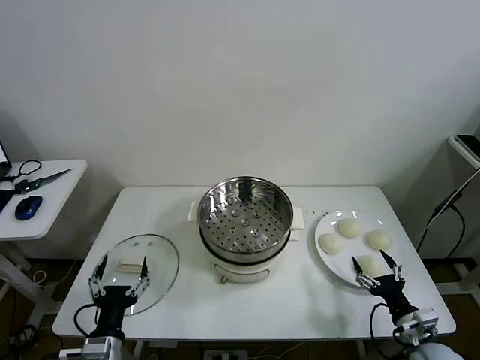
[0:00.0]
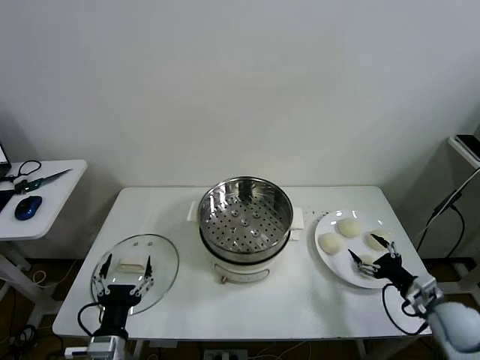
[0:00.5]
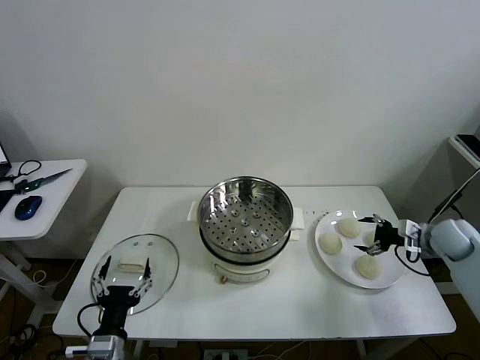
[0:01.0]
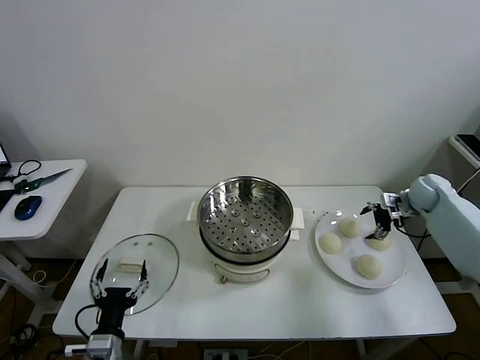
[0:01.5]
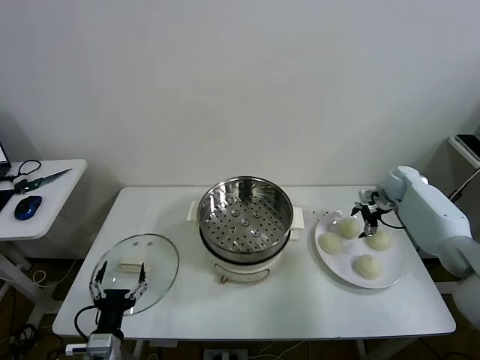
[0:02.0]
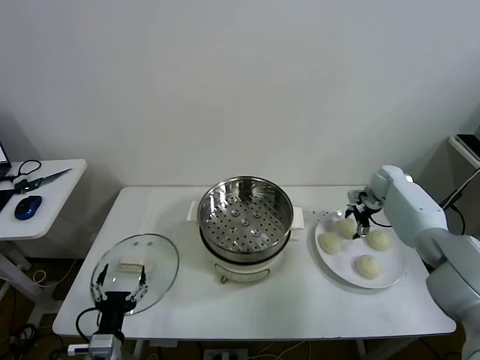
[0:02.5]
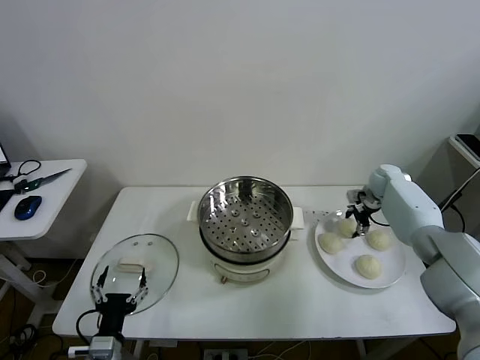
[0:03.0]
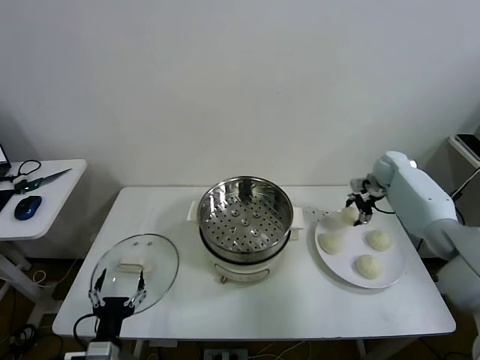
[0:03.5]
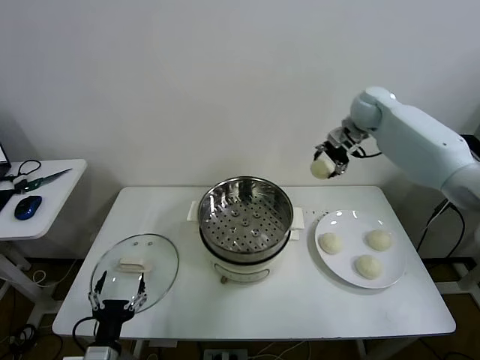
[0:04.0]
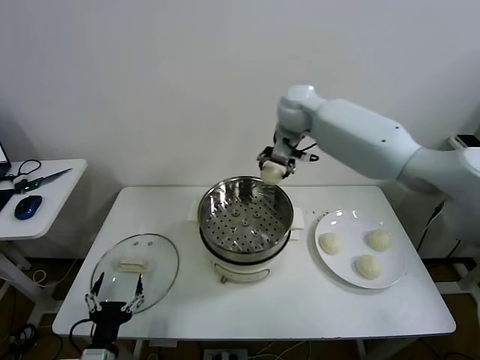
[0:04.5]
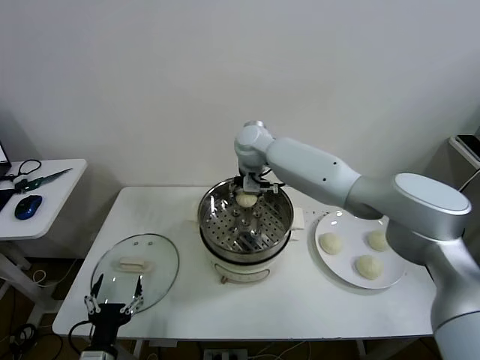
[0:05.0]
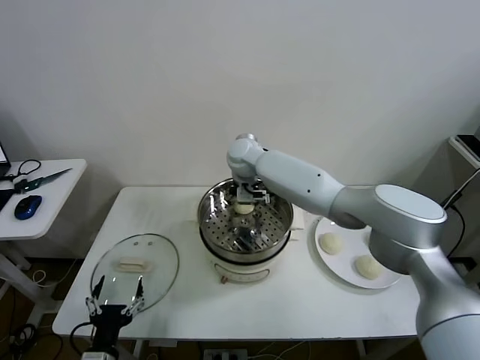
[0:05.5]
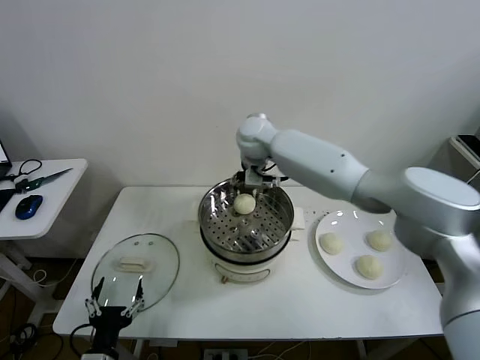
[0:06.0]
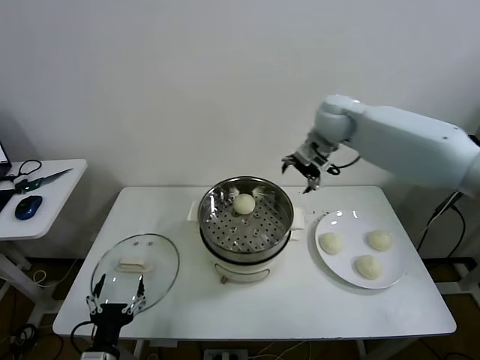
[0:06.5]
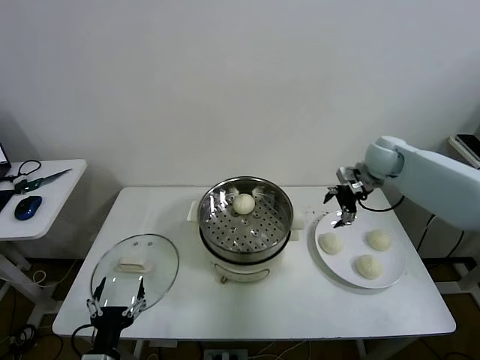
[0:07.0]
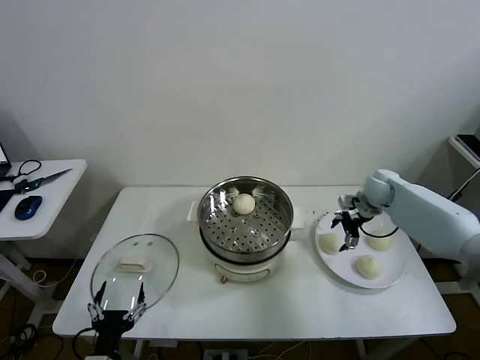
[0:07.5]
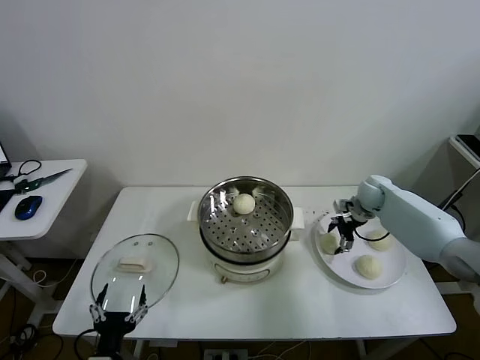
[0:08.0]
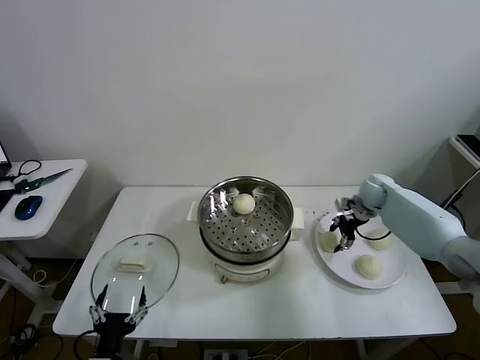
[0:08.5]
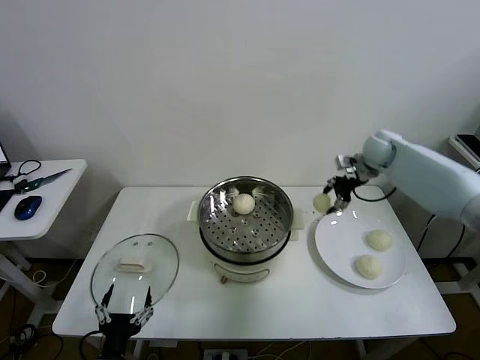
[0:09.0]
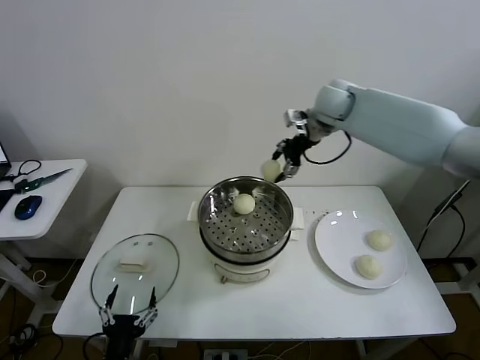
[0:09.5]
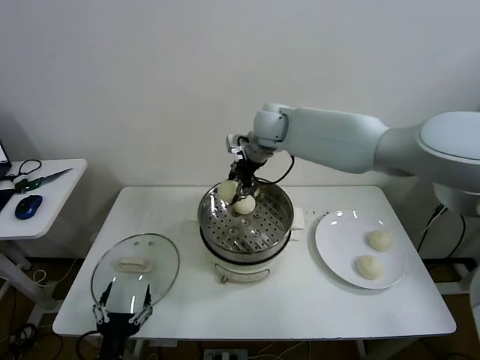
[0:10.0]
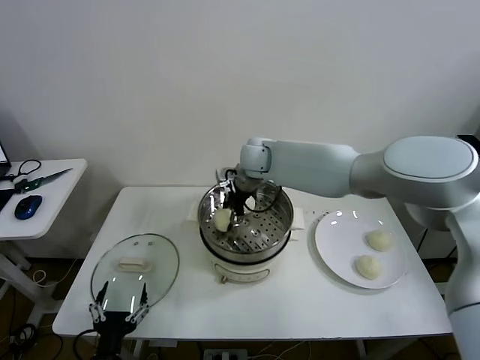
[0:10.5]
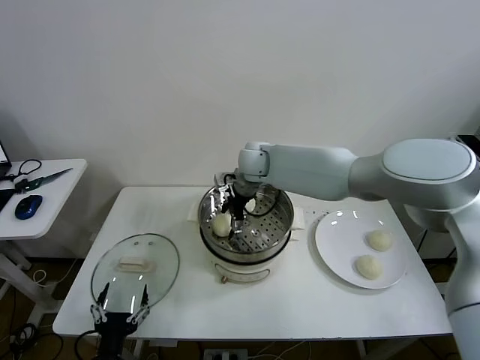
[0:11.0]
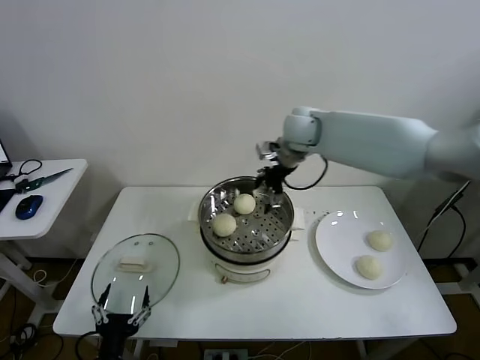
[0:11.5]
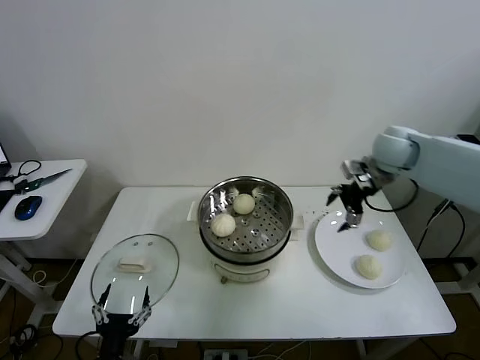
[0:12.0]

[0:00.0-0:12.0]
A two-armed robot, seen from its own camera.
Task of the whole recording: take steamed baozi put them in steamer then cover it.
Step, 0:00.0 to 0:03.0: Grasp the baozi in the plate with right gripper.
Step, 0:03.5 to 0:05.5: Place the baozi on the steamer with right gripper.
Step, 0:06.0 to 0:08.0: Grasp the baozi in the plate with right gripper.
Step, 0:08.5 to 0:11.0: Place the baozi on the steamer with right gripper.
0:02.0 to 0:04.0: The right gripper travels upward and to the left by roughly 30 cm, and closes.
0:04.0 to 0:06.0: The right gripper is displaced to the left by about 20 cm, and opens its fingers.
0:06.0 to 0:08.0: The right gripper moves to the right and downward, roughly 40 cm, and closes up.
0:08.0 to 0:10.0: The right gripper travels to the left and upward by roughly 35 cm, and closes up.
0:10.0 to 0:12.0: The right gripper shifts some 30 cm to the right, and opens.

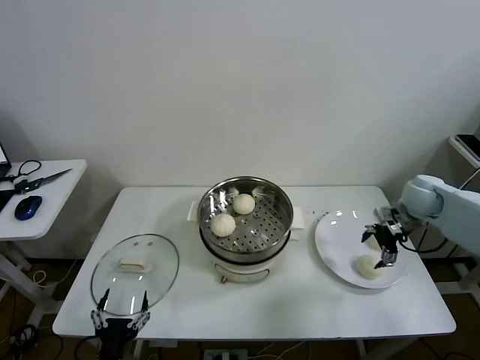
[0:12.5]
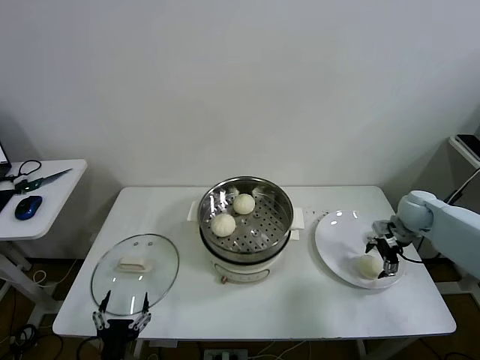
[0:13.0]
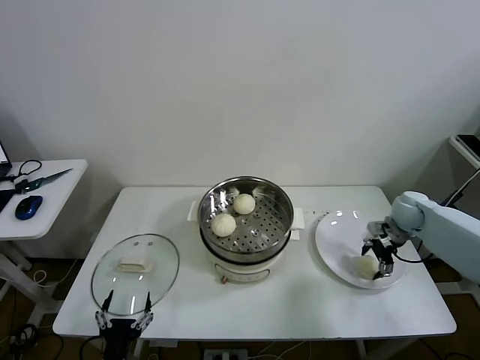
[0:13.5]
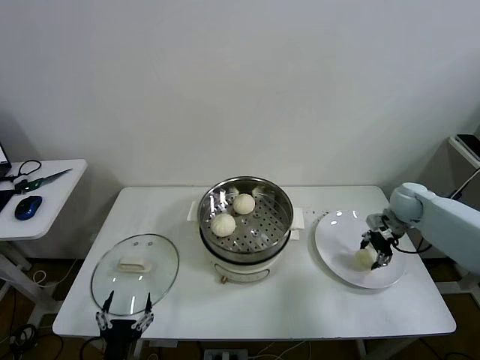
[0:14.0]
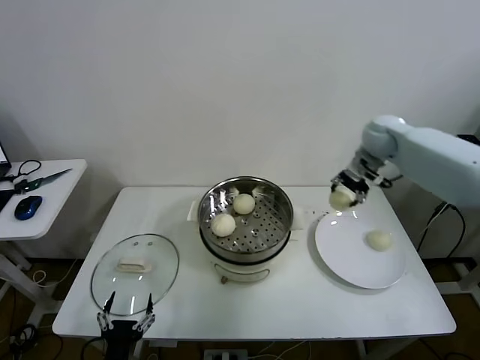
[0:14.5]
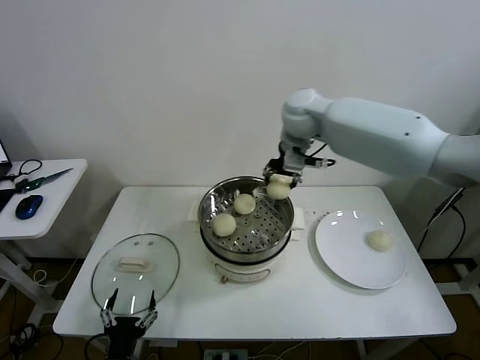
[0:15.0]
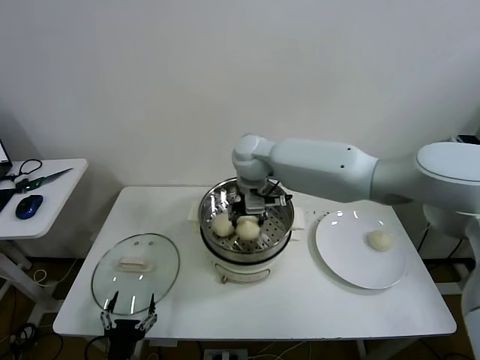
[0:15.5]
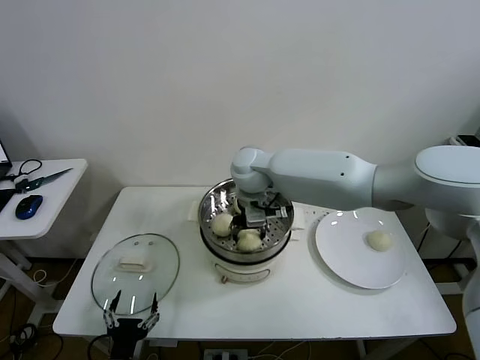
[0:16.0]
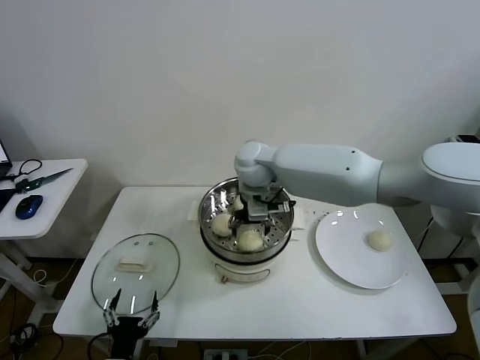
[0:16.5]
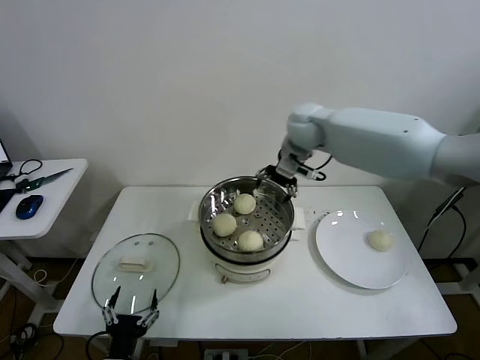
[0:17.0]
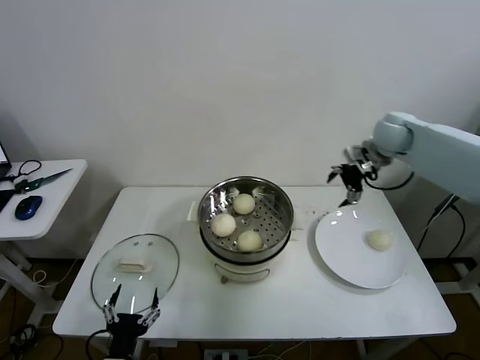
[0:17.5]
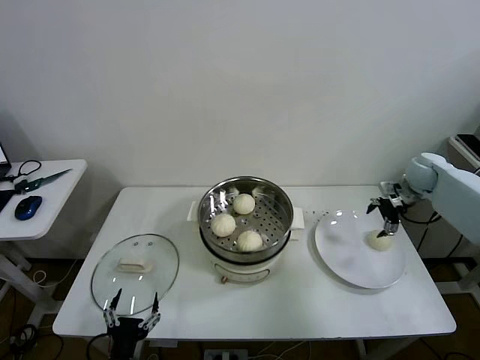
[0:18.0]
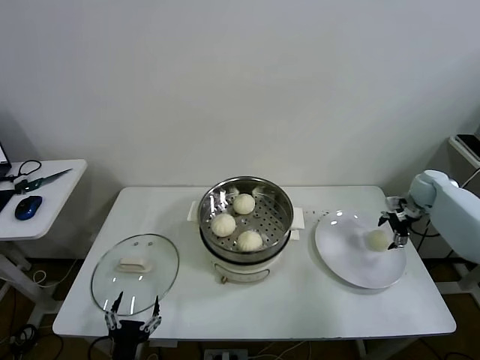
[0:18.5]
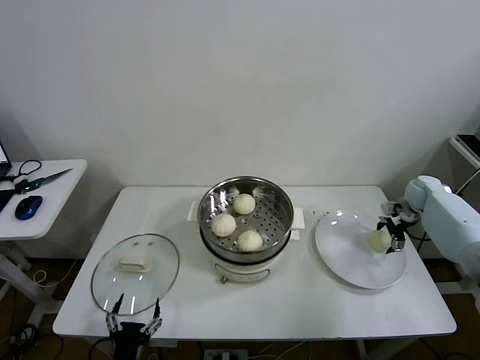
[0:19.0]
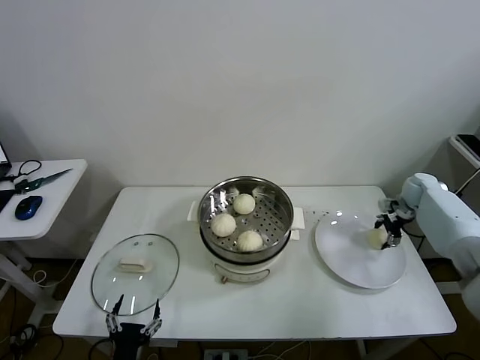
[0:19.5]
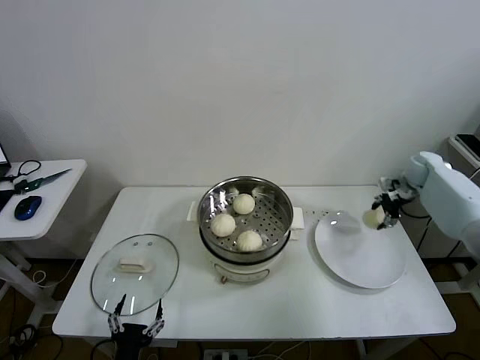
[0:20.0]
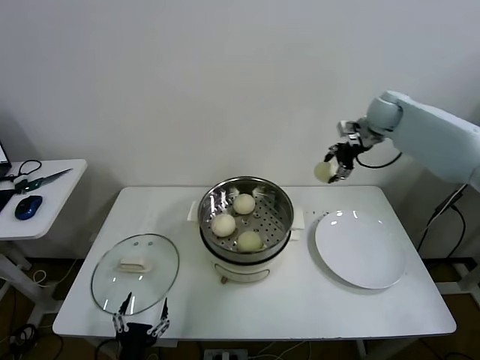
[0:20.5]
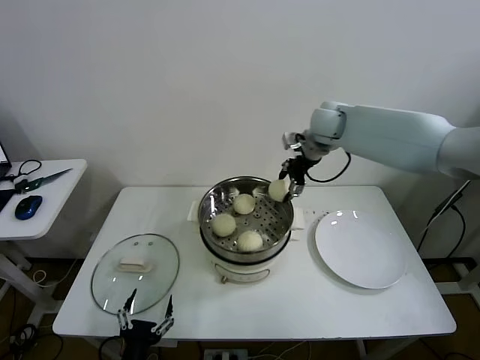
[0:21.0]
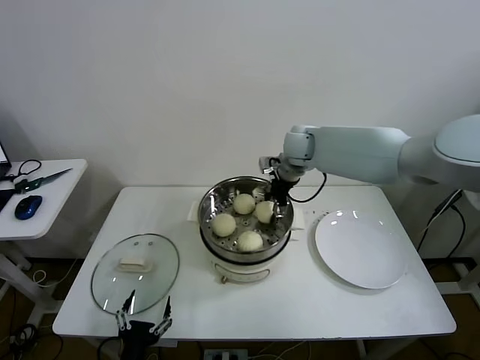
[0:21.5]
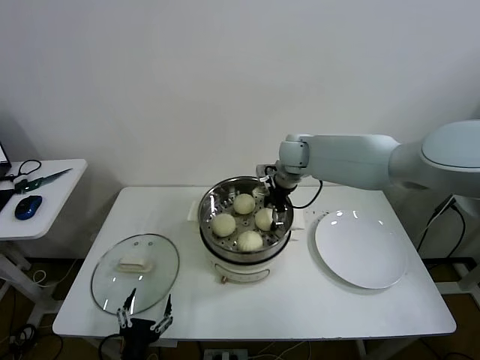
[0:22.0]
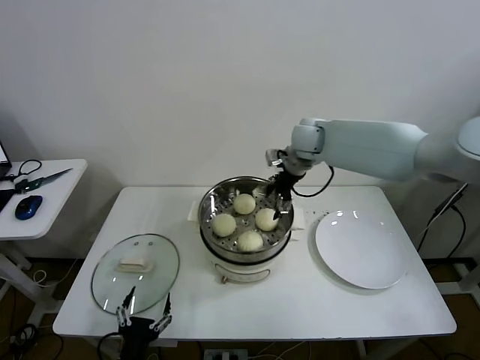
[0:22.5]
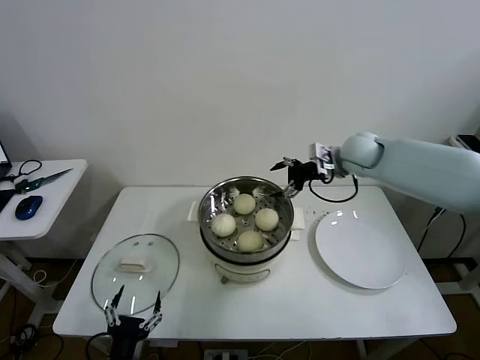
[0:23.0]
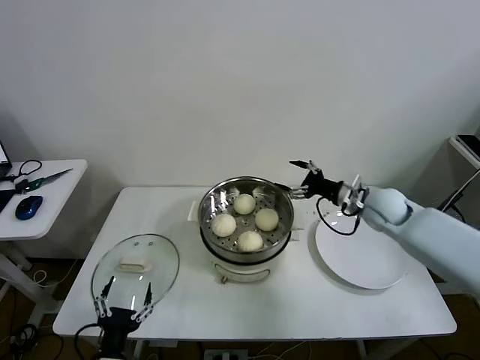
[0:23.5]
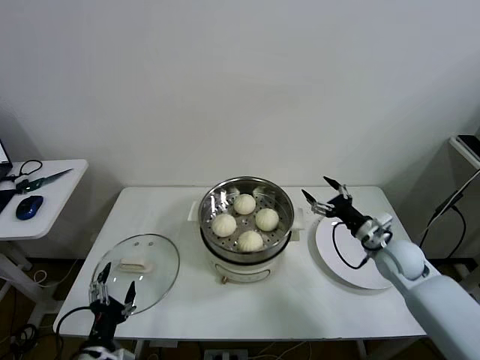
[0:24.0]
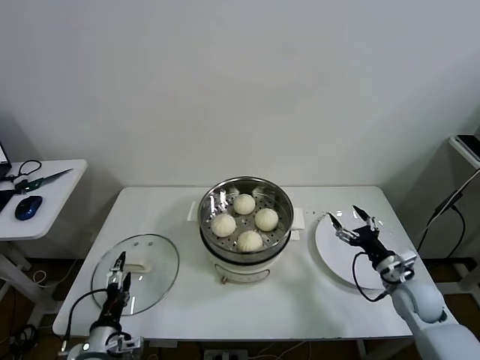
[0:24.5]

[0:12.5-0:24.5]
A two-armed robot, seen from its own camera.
Task of the whole recording: take steamed baozi put them in steamer then cover it.
Step, 0:14.0 to 0:16.0: Place the baozi on the steamer with right gripper.
Step, 0:16.5 to 0:19.5: Grasp the baozi in the plate with right gripper.
Step, 0:20.0 to 0:22.0: Place the baozi on the steamer with right gripper.
0:12.5 to 0:14.5: The right gripper is displaced upward, to the left and forward by some 20 cm, and closes.
0:14.5 to 0:16.5: The right gripper heads to the left, covering roughly 30 cm, and opens.
0:16.5 to 0:18.5: The right gripper shifts some 50 cm to the right.
0:18.5 to 0:20.5: The right gripper shifts some 25 cm upward and to the left, and closes its fingers.
0:20.5 to 0:22.5: The right gripper moves to the left, roughly 15 cm, and opens up.
0:22.5 to 0:24.5: The right gripper goes some 40 cm downward, backward and to the right, while the left gripper heads forward and to the left, covering approximately 10 cm.

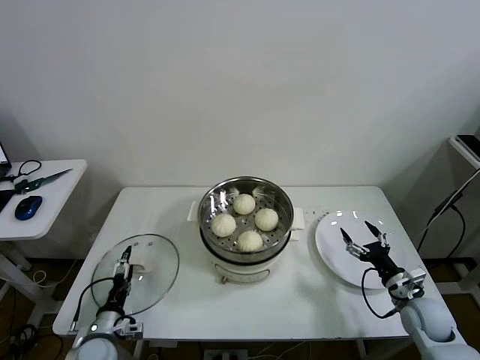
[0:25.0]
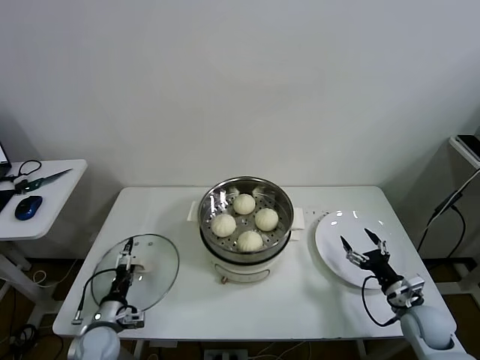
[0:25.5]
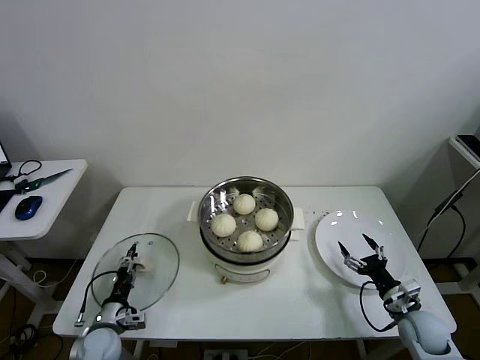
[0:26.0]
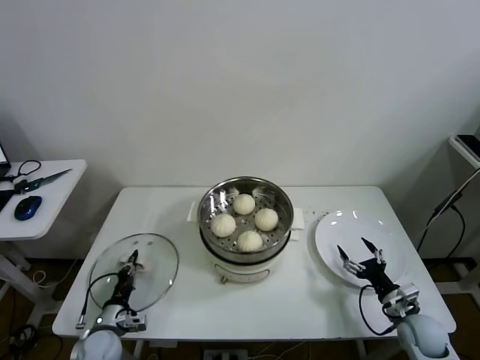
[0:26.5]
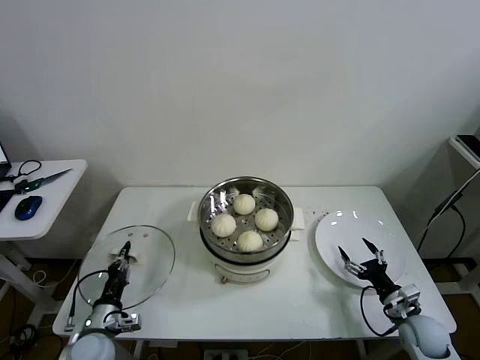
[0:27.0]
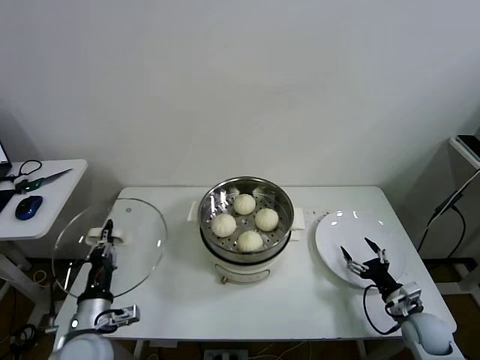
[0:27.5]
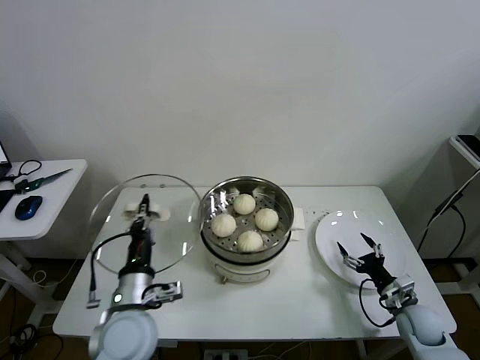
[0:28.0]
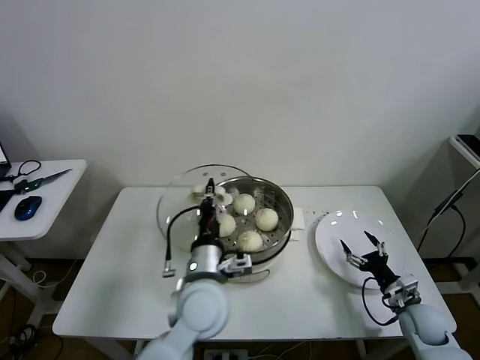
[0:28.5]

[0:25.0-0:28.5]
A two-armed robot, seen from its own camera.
Task of the whole recording: take steamed baozi put them in steamer then cover it.
0:25.0 to 0:27.0: The left gripper closes. The right gripper shifts by about 5 cm.
0:27.0 to 0:28.5: The left gripper shifts about 30 cm to the right and upward.
